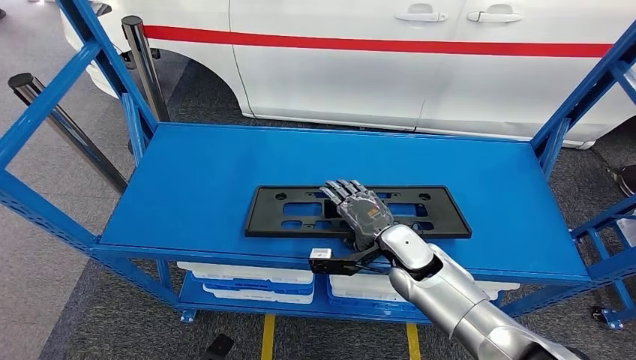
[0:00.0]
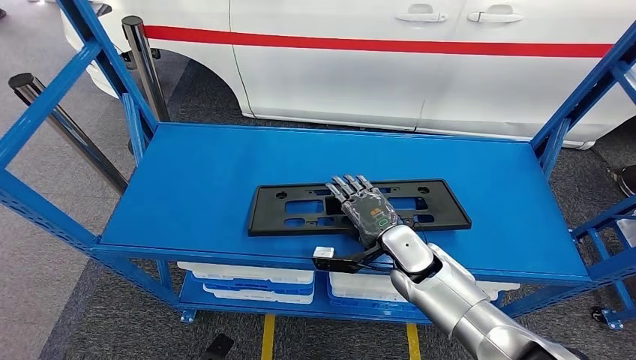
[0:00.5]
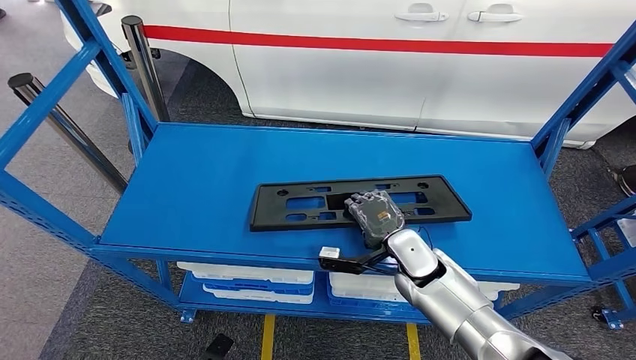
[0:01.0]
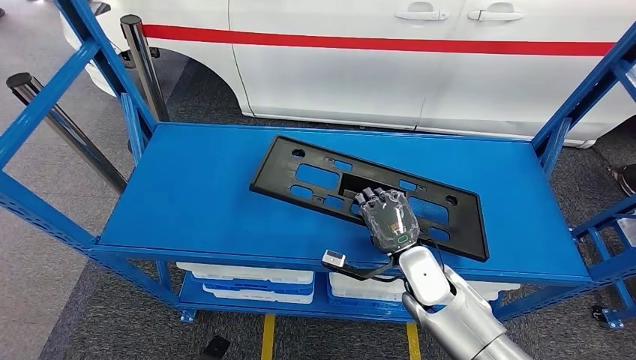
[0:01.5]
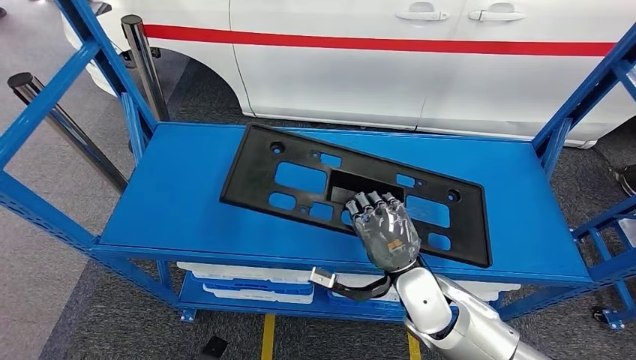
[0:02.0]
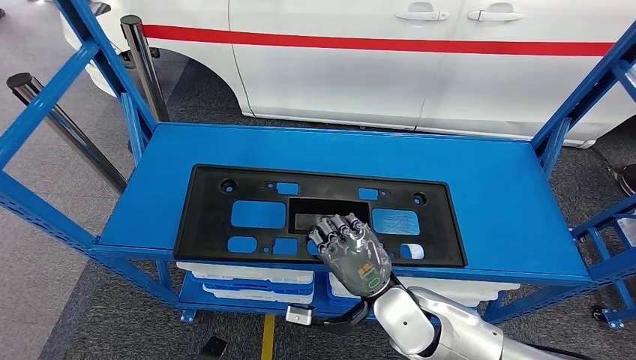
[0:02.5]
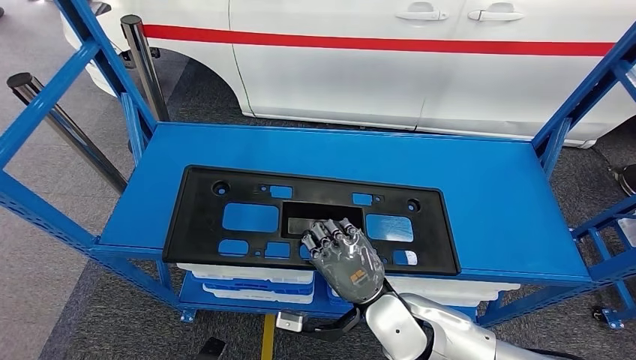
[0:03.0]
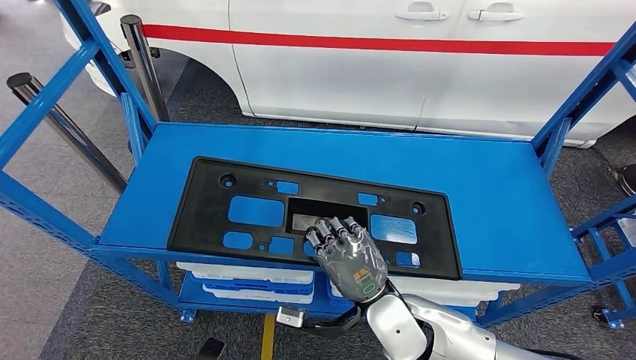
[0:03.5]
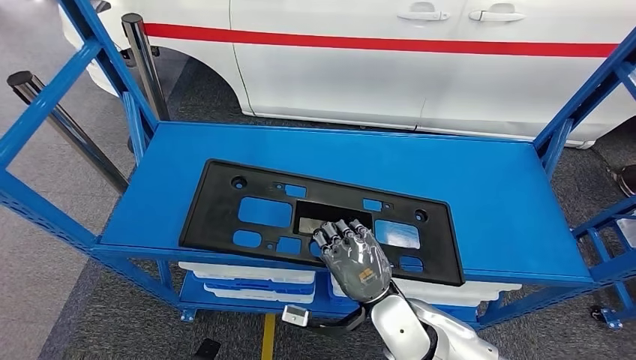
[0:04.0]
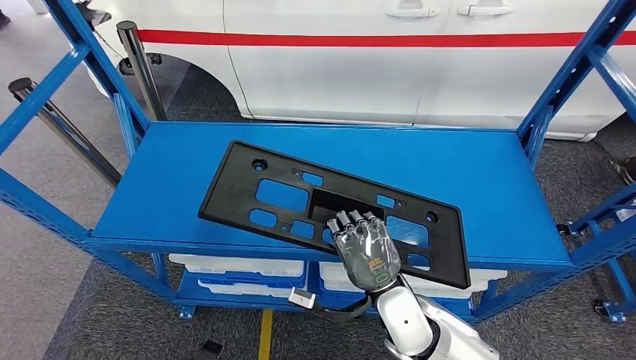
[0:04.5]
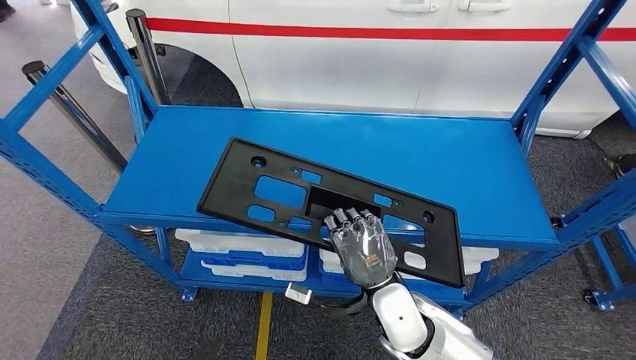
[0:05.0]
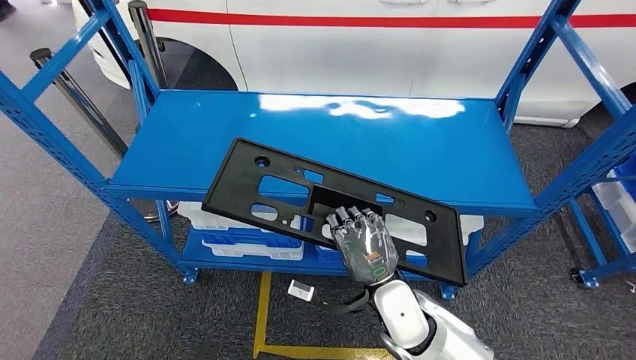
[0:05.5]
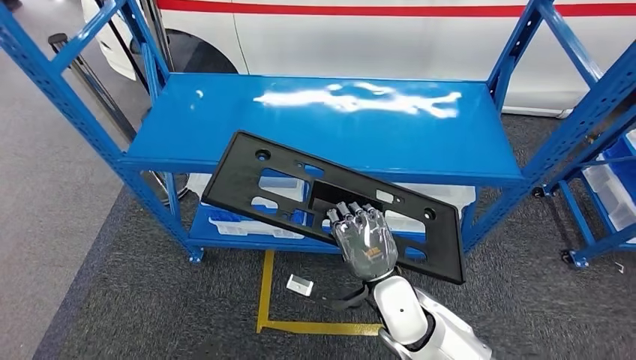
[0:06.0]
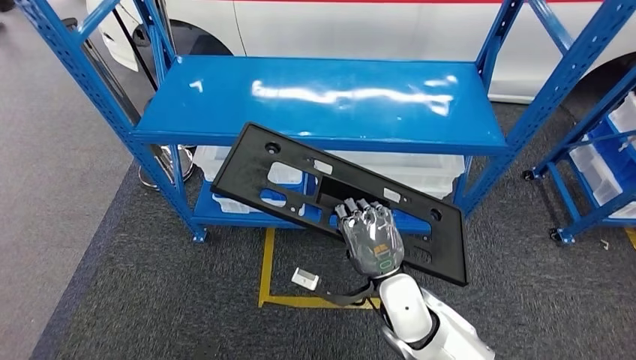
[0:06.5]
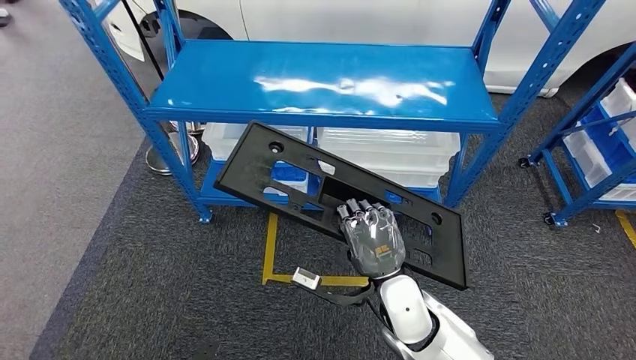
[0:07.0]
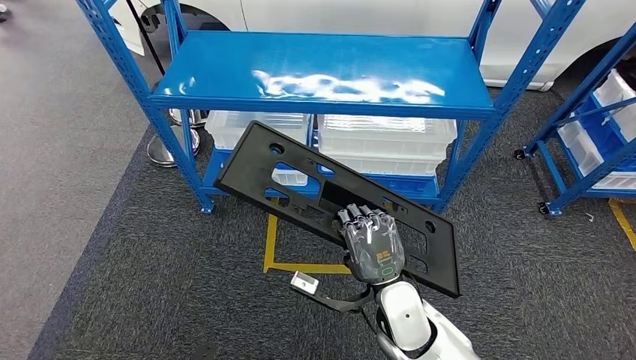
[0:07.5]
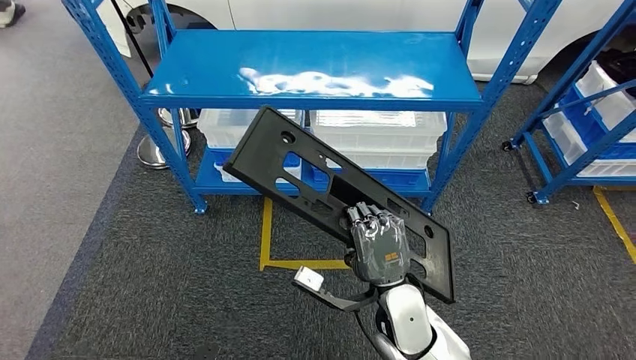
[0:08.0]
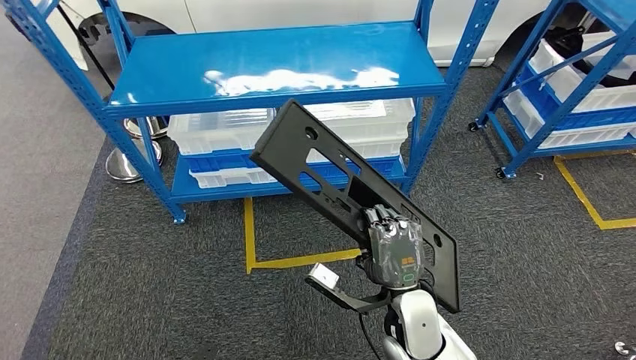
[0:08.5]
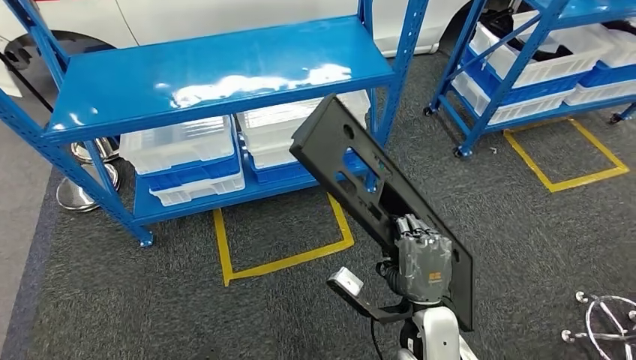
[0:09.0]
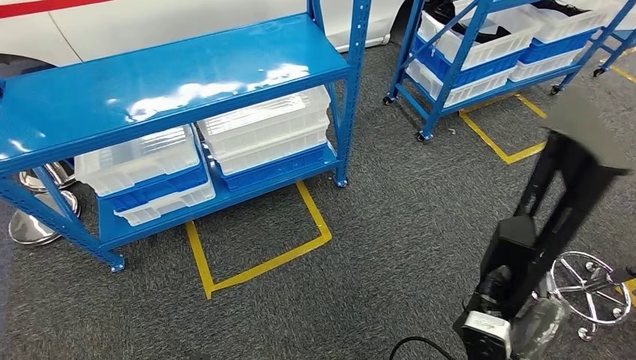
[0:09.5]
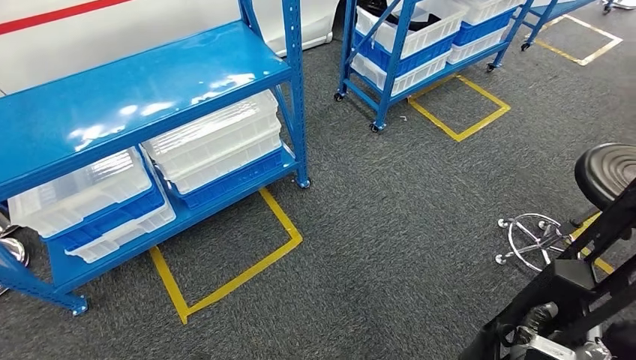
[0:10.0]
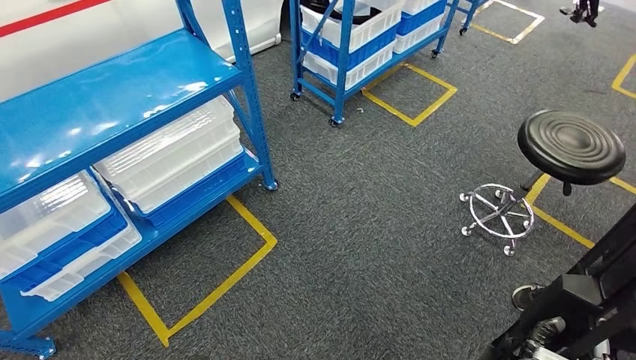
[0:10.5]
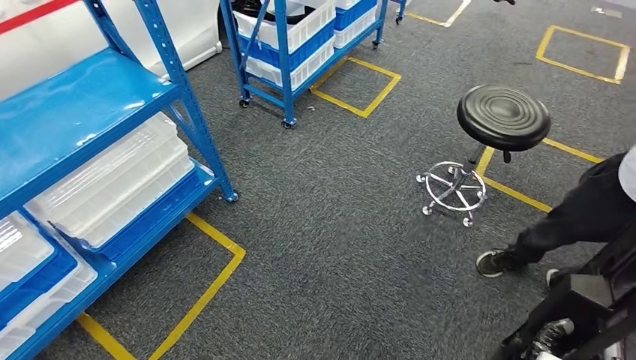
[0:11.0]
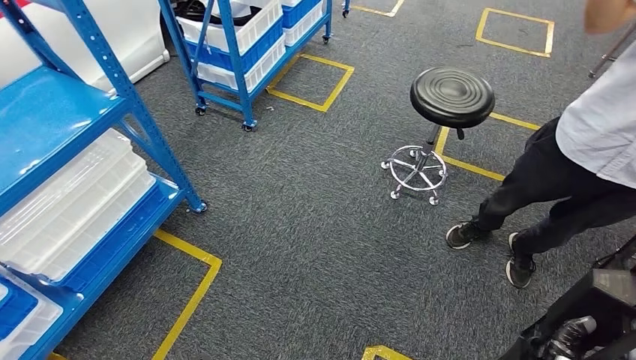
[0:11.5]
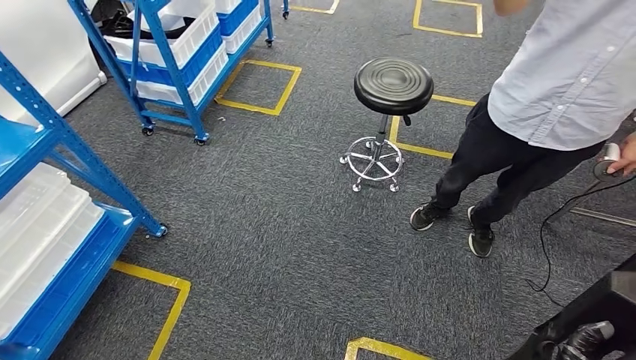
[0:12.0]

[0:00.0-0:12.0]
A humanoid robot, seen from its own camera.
Step, 0:00.0 to 0:02.0: Pick up the large material from the shelf.
0:00.0 to 0:02.0: The right hand goes roughly 10 cm backward.
0:02.0 to 0:04.0: The right hand shifts by approximately 5 cm.

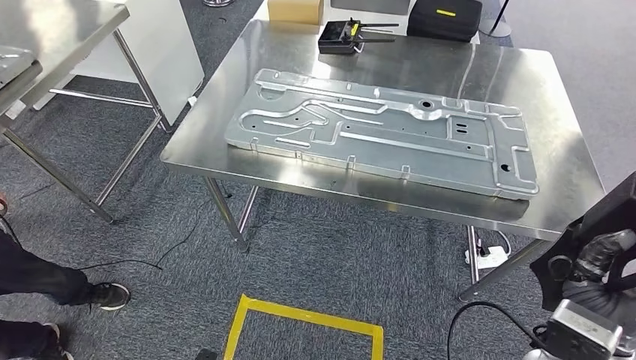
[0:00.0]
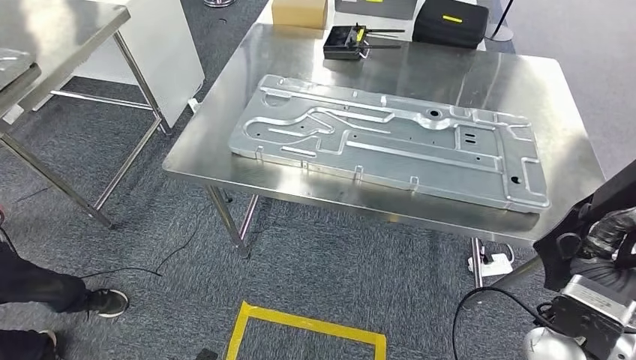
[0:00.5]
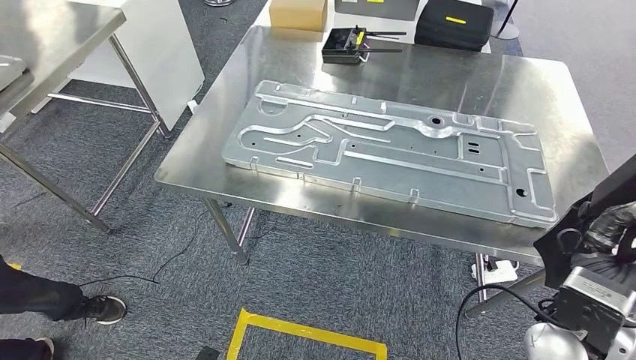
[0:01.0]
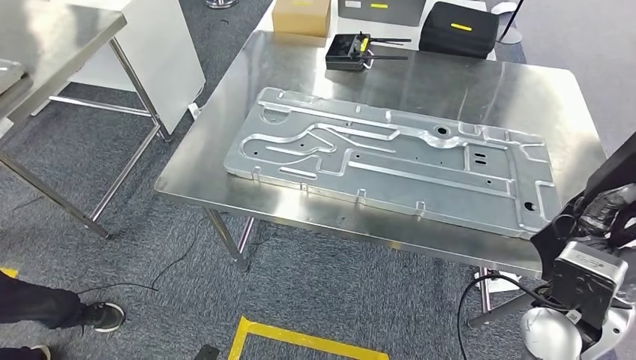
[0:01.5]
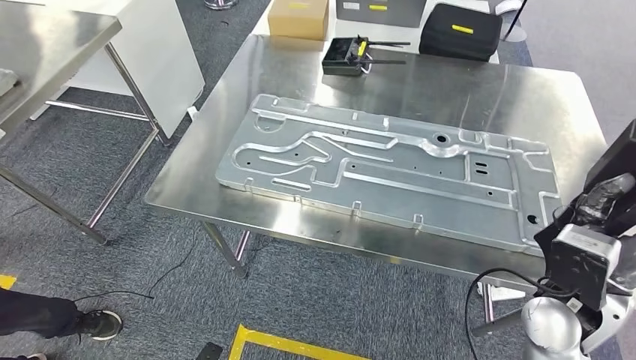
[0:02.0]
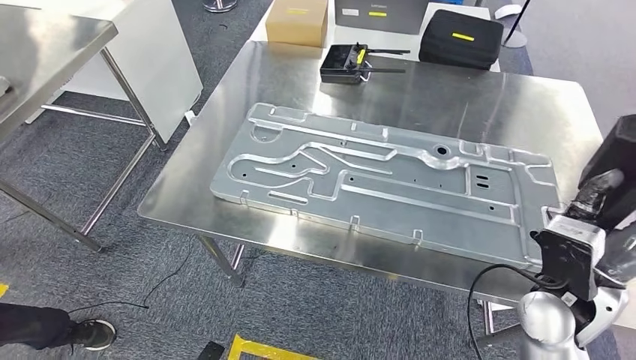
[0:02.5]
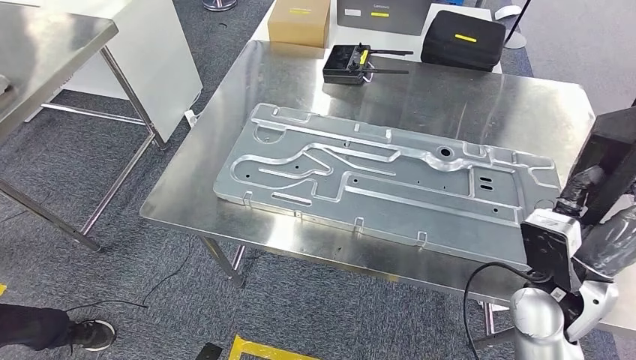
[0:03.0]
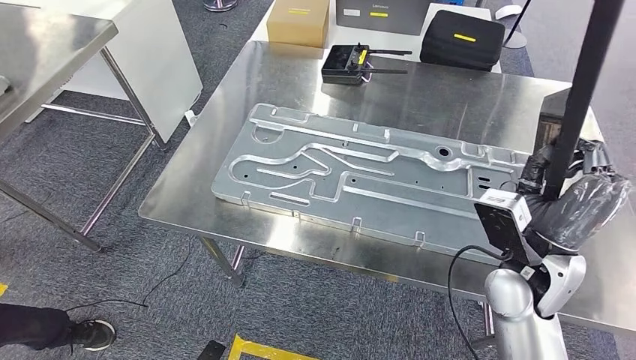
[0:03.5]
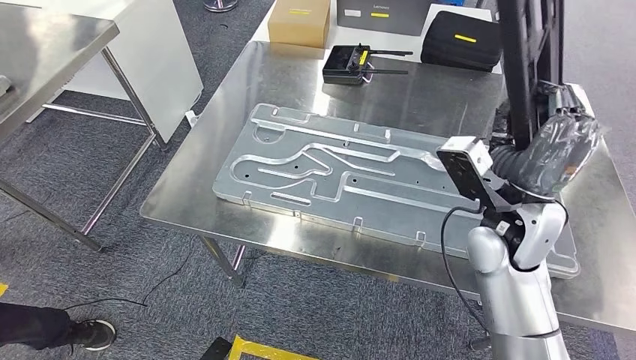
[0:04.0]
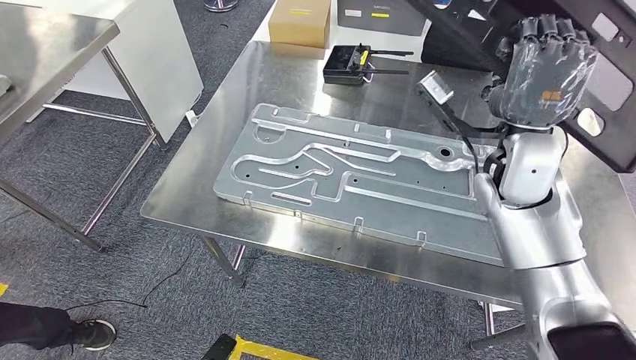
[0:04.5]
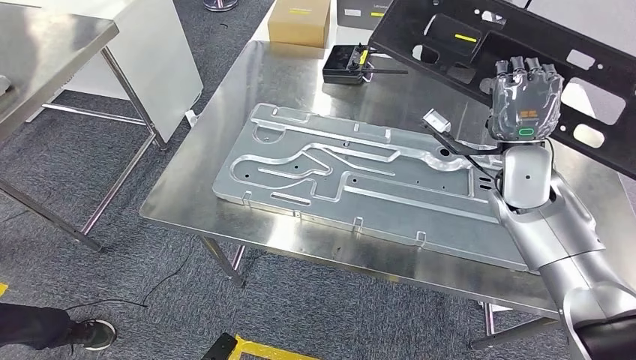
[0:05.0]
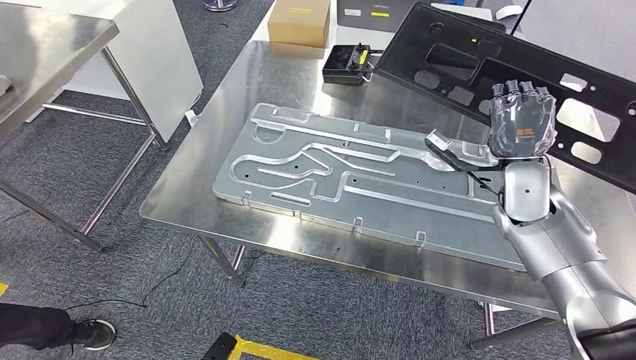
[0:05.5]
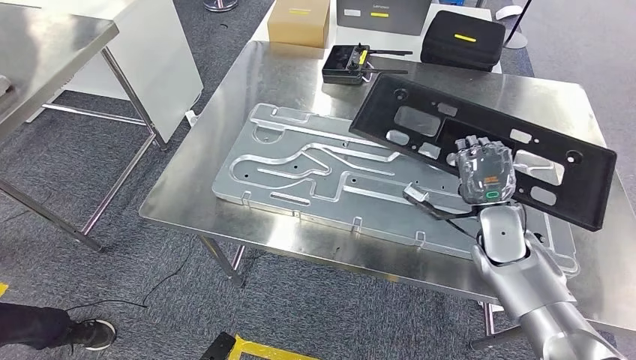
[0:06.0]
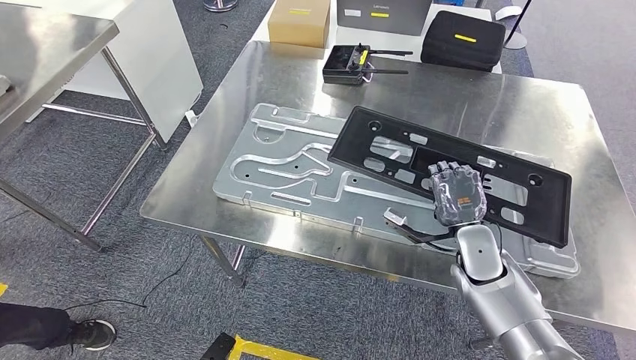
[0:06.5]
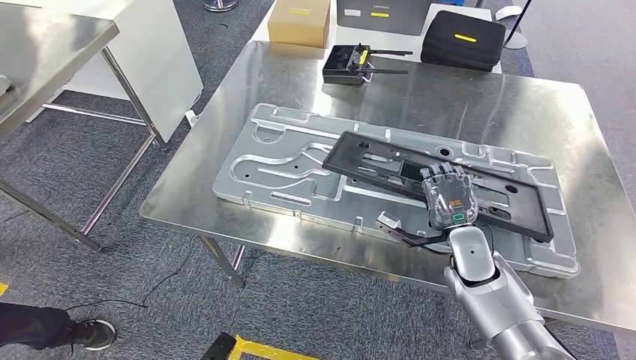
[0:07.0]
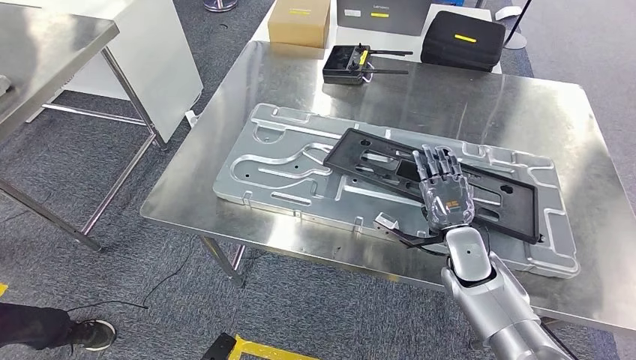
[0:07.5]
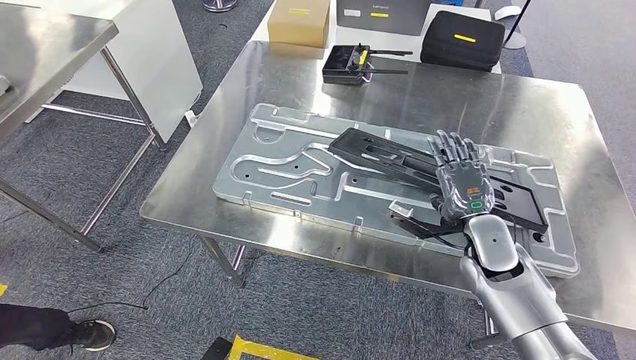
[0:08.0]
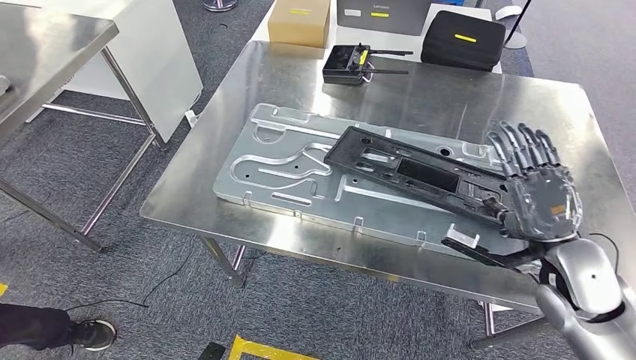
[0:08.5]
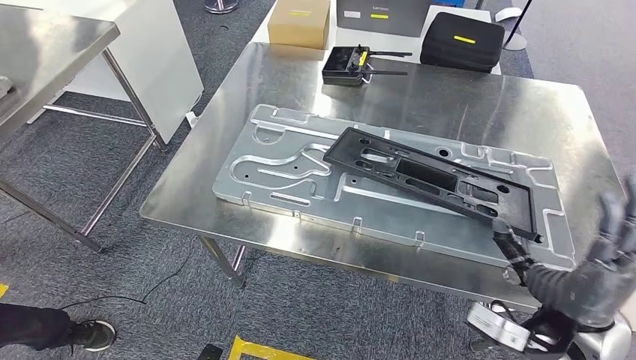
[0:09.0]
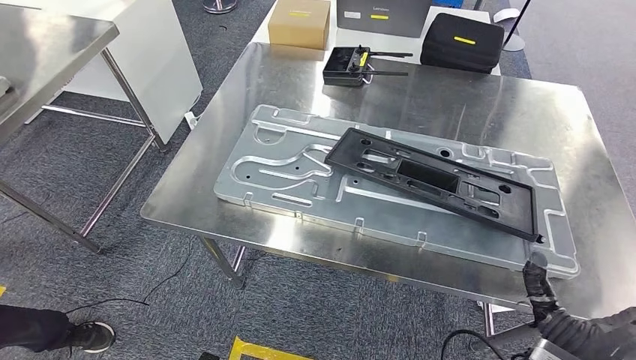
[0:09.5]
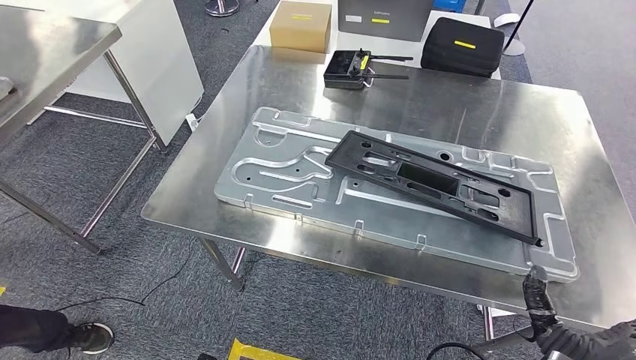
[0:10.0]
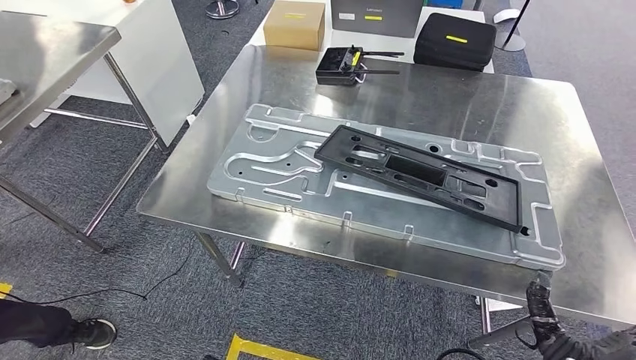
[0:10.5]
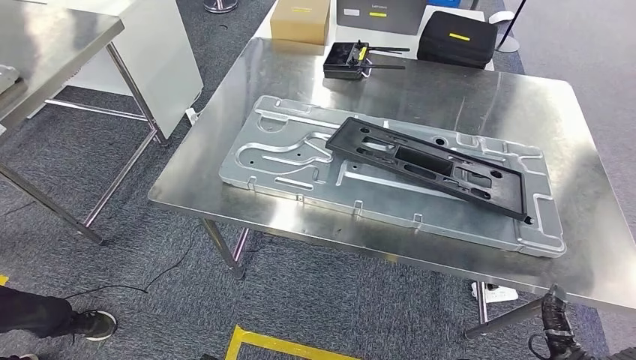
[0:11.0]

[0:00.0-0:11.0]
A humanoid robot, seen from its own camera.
Step, 0:01.0 to 0:09.5: Insert the large material into the corresponding hole on the workbench.
0:03.5 to 0:05.5: The right hand goes roughly 15 cm forward.
0:07.5 to 0:09.0: The right hand goes roughly 20 cm backward and upward.
